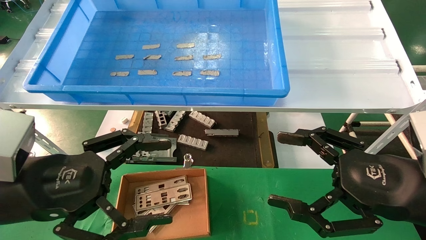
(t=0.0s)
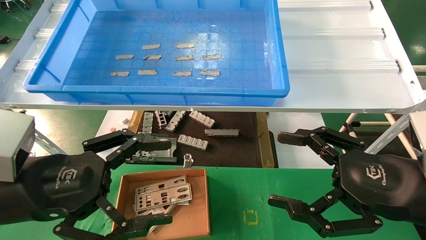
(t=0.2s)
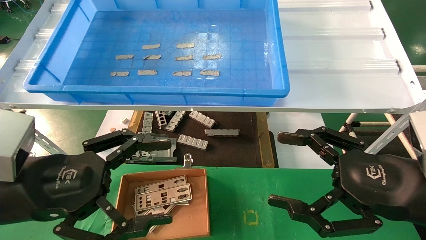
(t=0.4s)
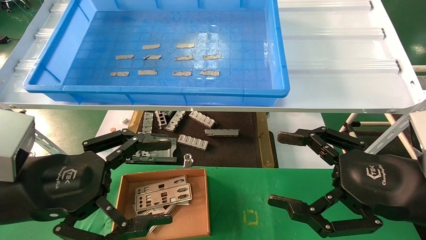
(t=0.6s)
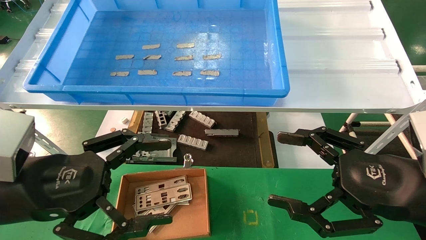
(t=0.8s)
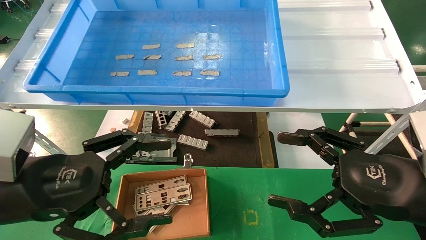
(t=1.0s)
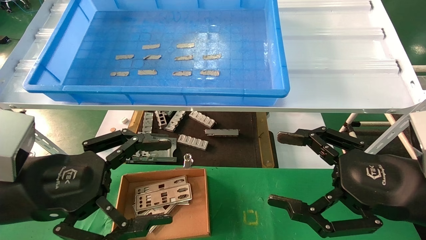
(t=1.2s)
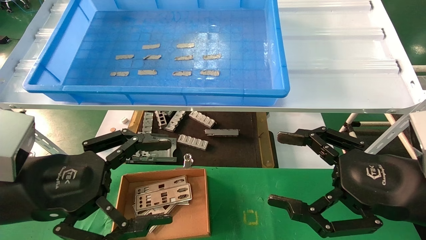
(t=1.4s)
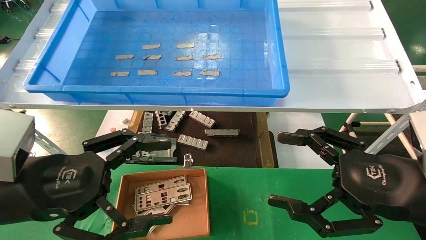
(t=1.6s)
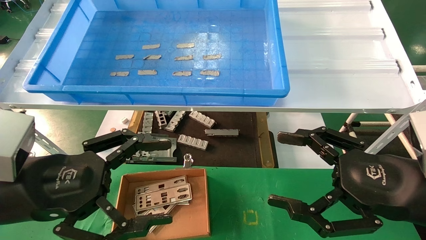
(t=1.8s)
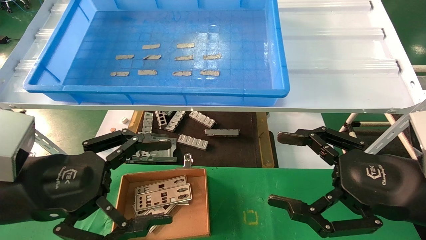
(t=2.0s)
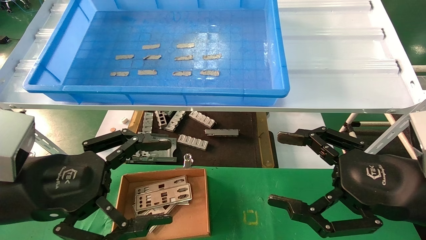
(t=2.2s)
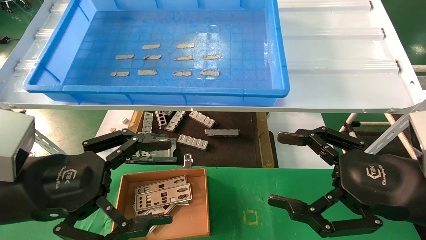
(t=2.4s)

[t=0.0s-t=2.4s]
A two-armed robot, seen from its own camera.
Task of the whole recording: pick up the parts on the tray and put them in the cardboard box.
t=0.0s to t=2.4s: Neither gripper changes place.
